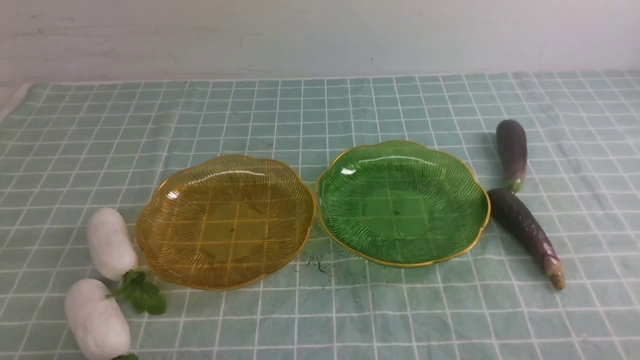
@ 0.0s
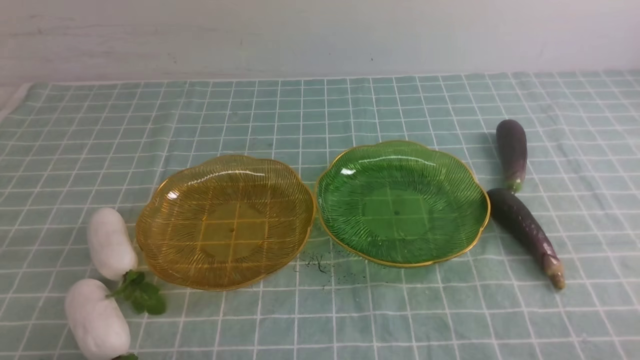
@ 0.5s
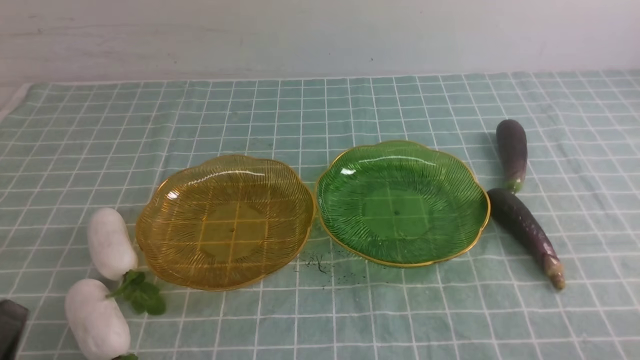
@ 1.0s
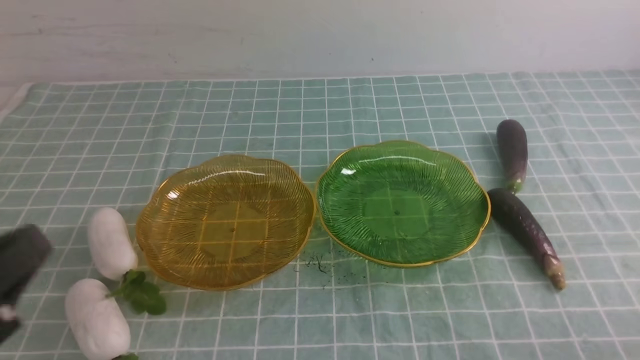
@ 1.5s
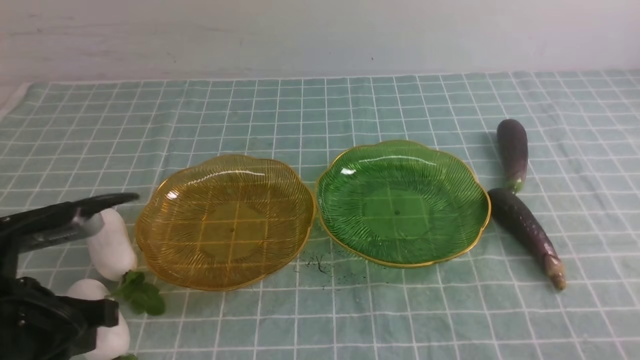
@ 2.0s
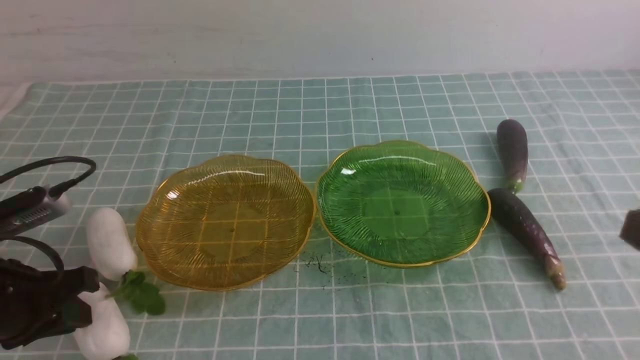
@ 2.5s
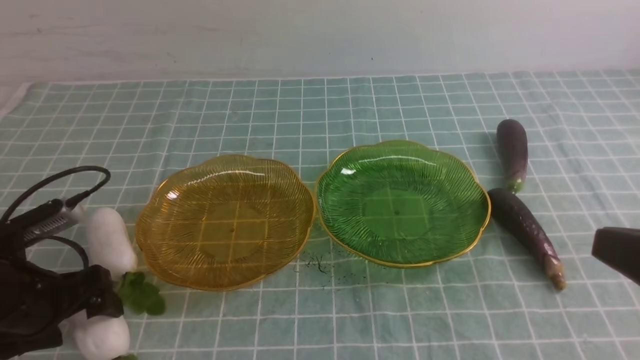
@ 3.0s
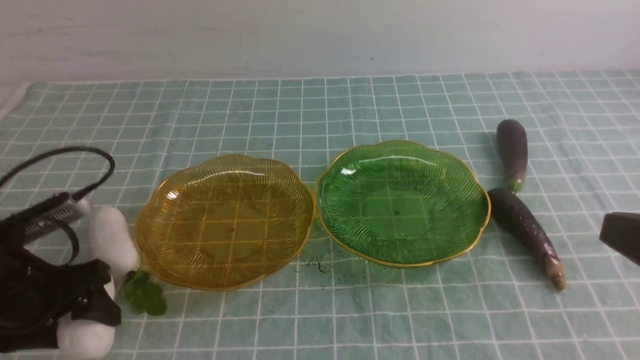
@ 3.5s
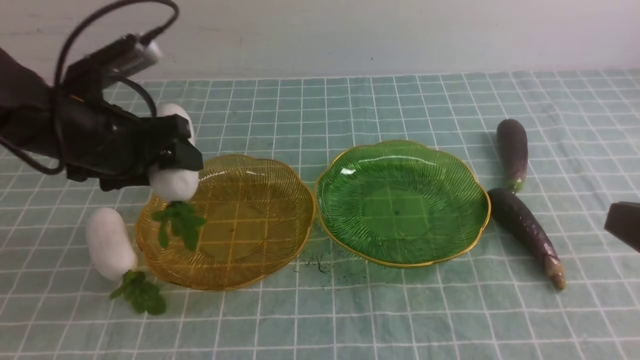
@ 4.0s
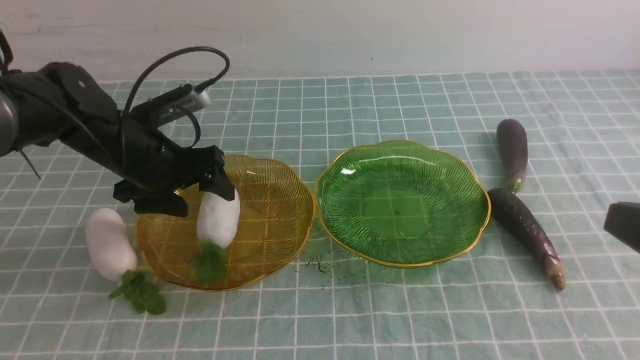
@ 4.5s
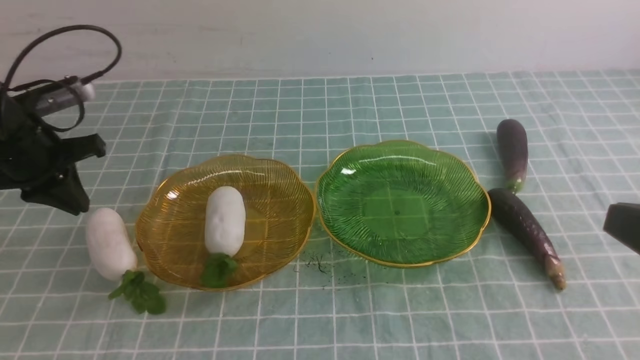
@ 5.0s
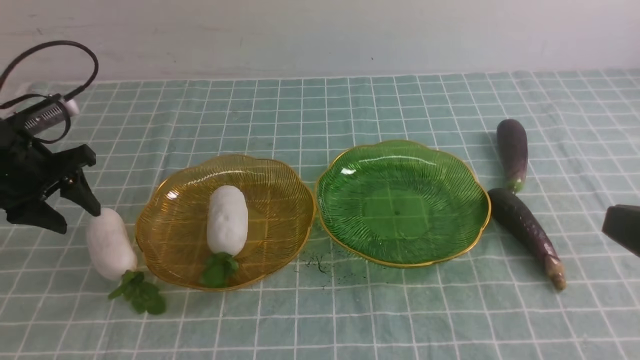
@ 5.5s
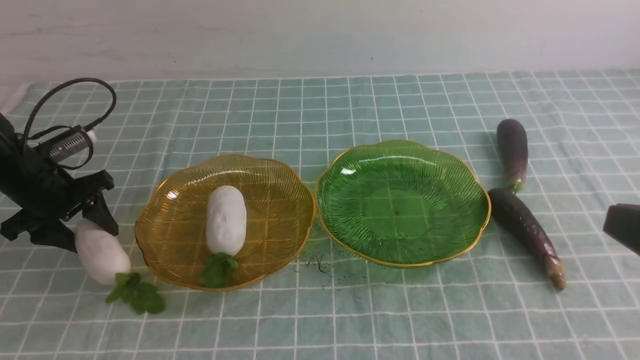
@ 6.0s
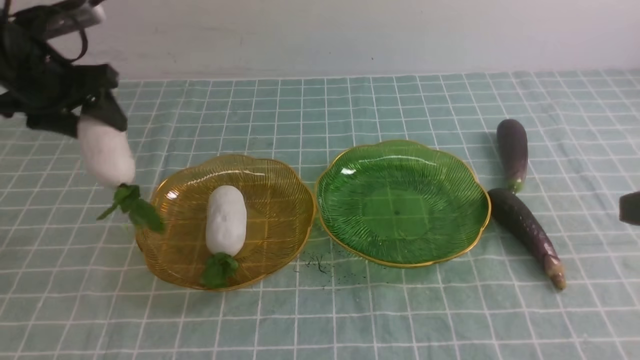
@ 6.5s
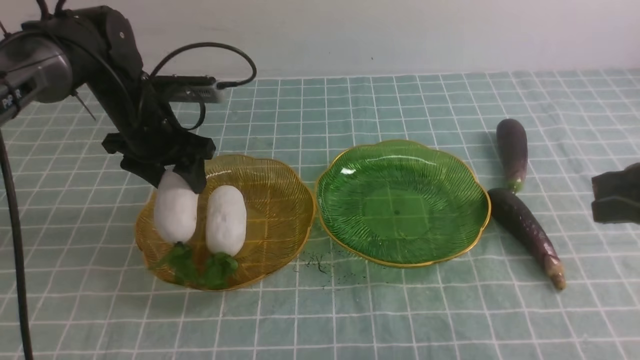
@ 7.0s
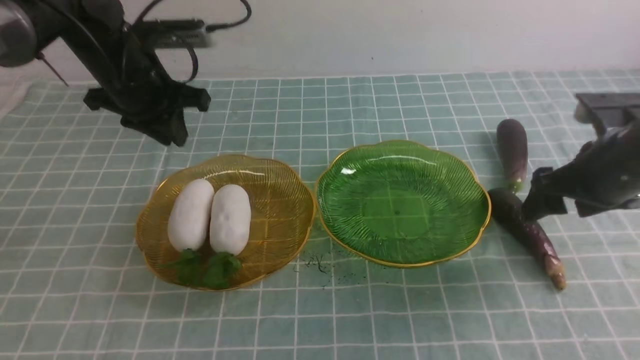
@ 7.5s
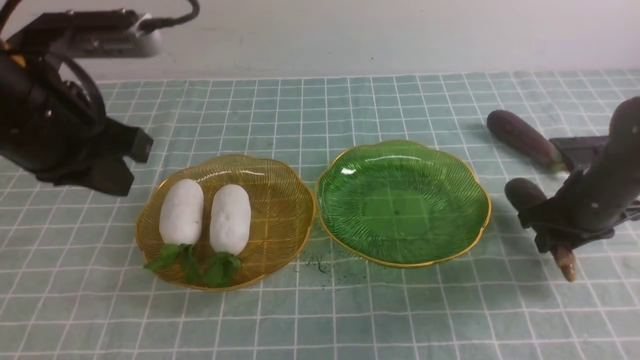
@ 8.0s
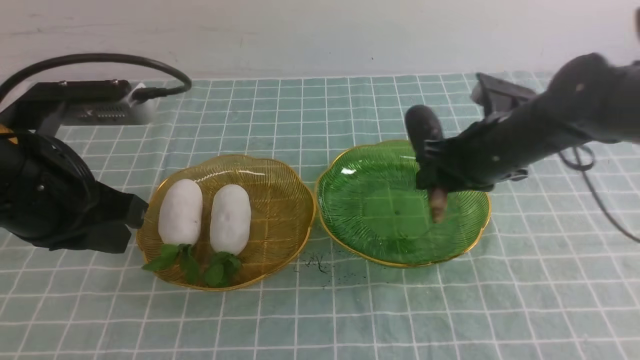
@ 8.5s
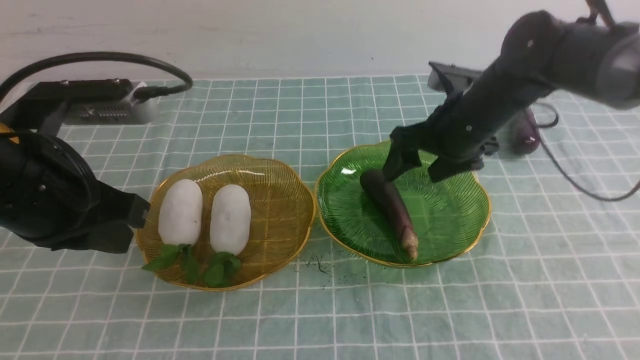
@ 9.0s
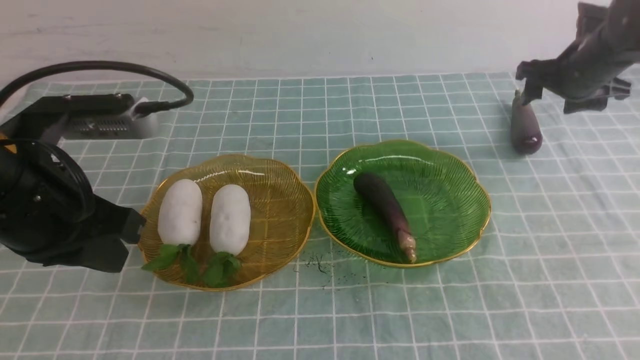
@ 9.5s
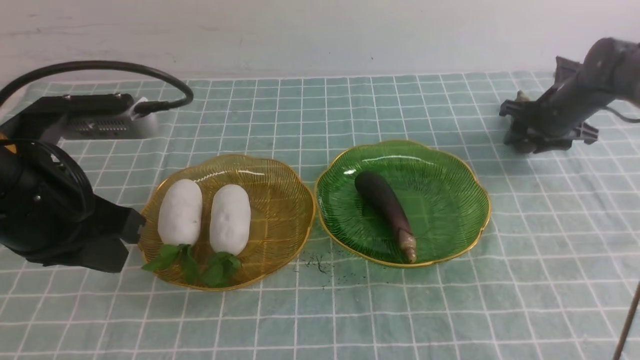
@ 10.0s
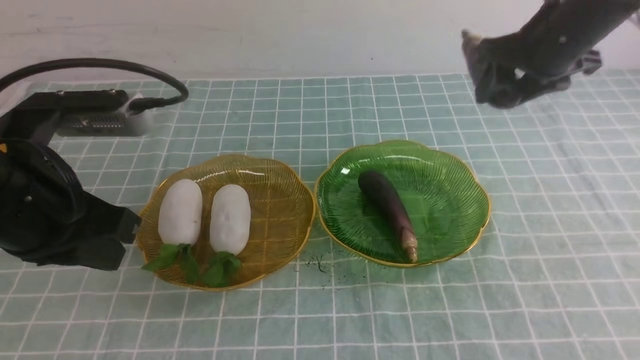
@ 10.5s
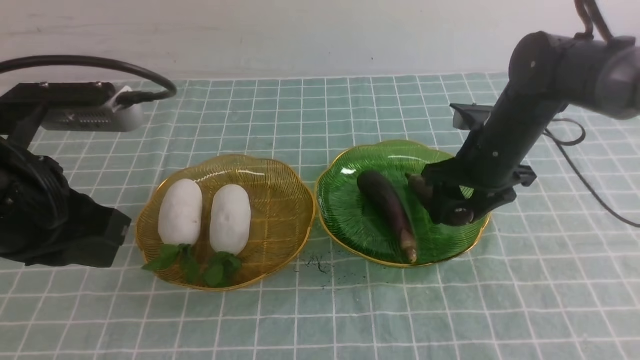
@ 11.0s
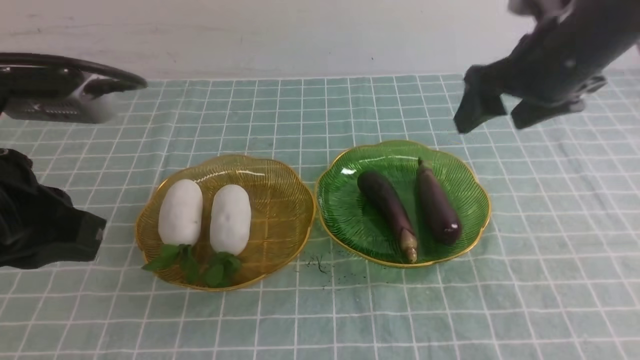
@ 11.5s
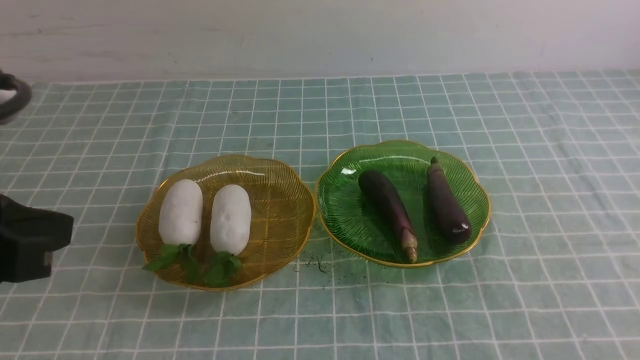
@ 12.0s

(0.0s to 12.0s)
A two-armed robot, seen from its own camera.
Step, 0.0s - 7.0s: use the left arm to grab a radish and put it into the left plate.
Step, 7.5s - 8.5s: use the right arm to grab an eggplant and put it into the right plate.
Step, 9.0s - 11.0s: use the right arm to grab an eggplant and put it into the right plate.
2.0s - 4.0s: The right gripper heads upward and forward, covering some 10 cm. Meanwhile the left gripper heads forward, covering about 15 cm, and opens up.
4.0s - 6.0s: The left gripper travels to the left, downward and forward by roughly 20 cm, and closes, then reopens.
6.0s - 8.0s: The right gripper goes approximately 30 cm forward and downward, and opens up. Meanwhile the left gripper is displaced upward, to the right and backward by roughly 25 cm, and closes.
8.0s - 10.0s: The left gripper is displaced backward by some 5 cm; the right gripper shifts some 15 cm forward.
10.0s - 12.0s: The left gripper shifts about 10 cm backward. Meanwhile the right gripper goes approximately 50 cm backward and upward, and closes.

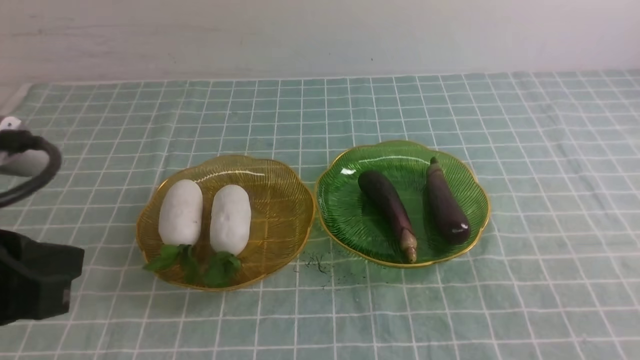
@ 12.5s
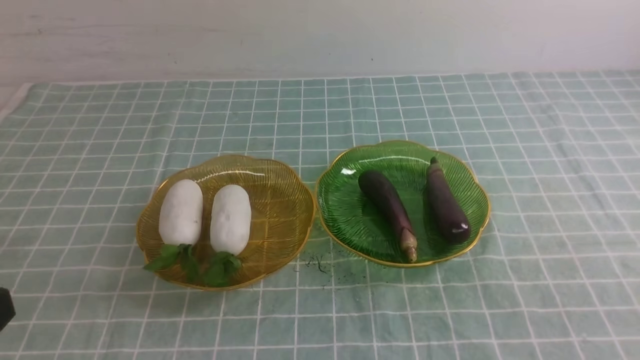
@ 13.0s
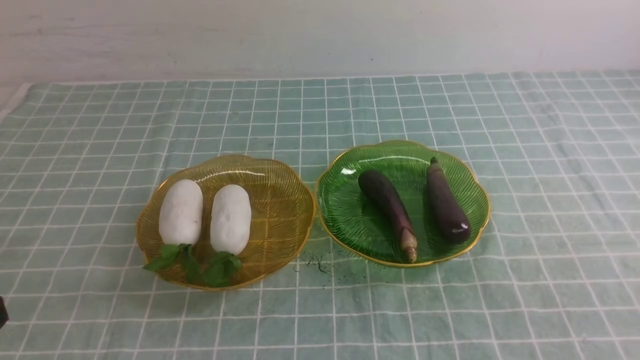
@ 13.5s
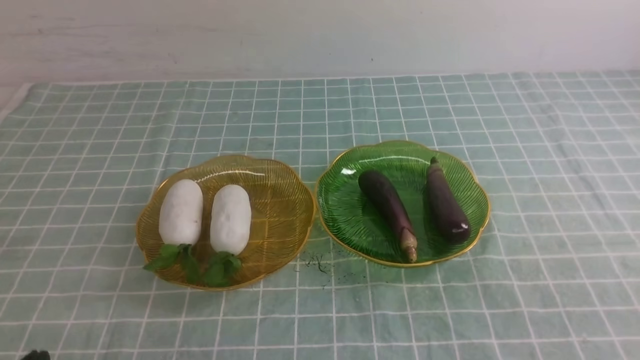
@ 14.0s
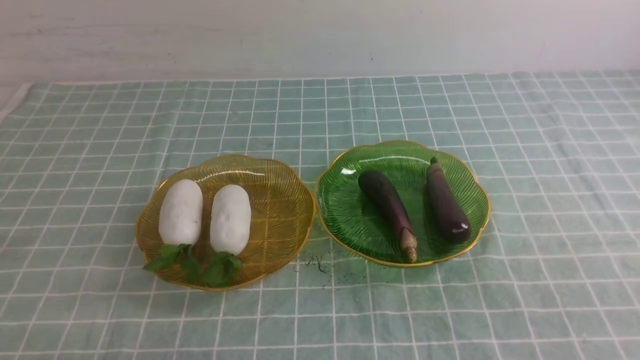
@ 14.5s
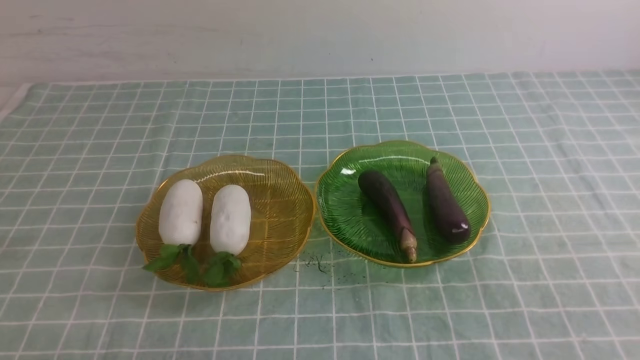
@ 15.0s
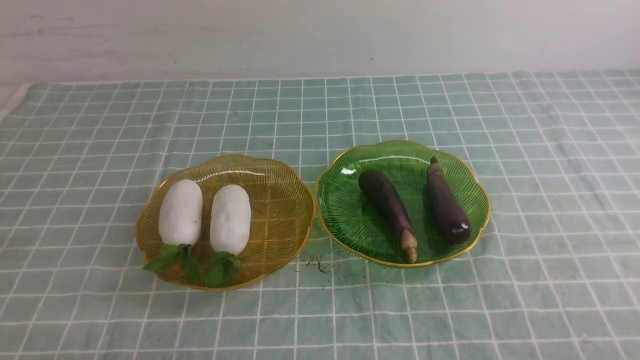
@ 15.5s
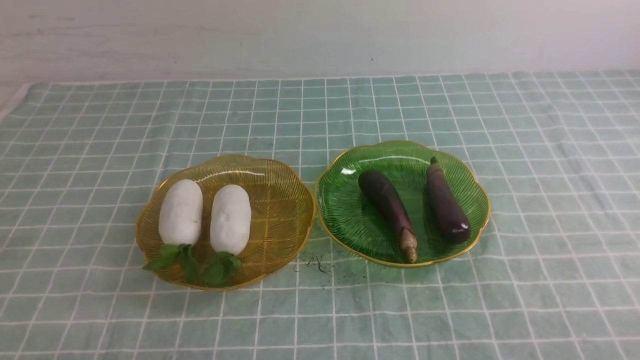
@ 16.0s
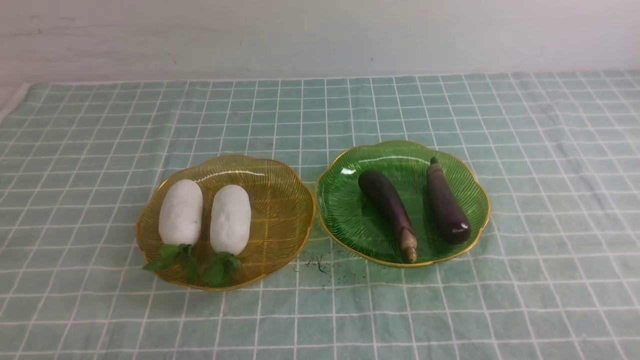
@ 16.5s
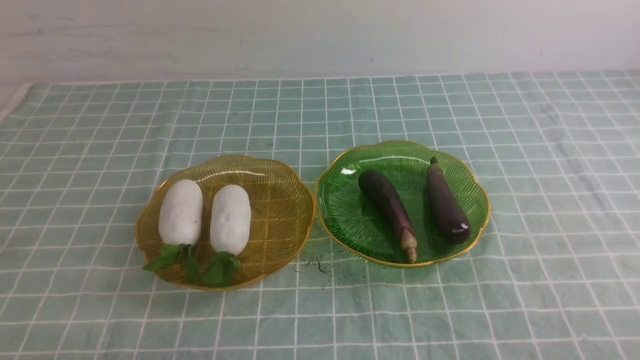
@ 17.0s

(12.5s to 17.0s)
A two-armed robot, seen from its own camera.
12.5s - 14.5s: The left gripper travels downward by about 20 cm.
